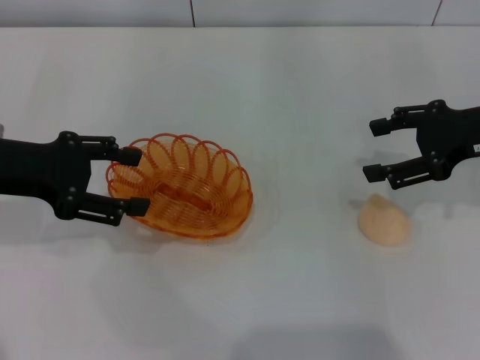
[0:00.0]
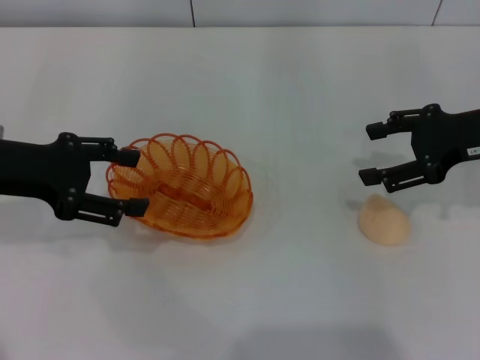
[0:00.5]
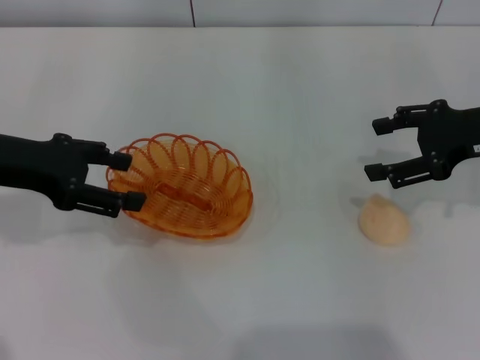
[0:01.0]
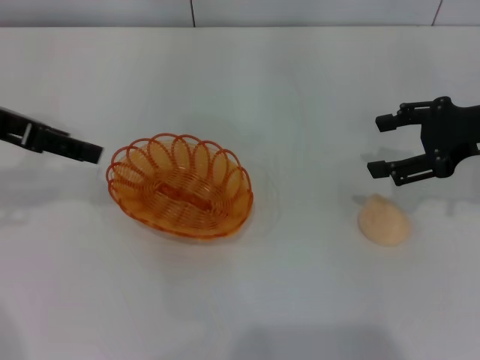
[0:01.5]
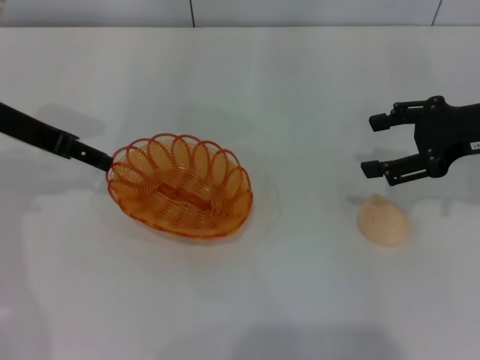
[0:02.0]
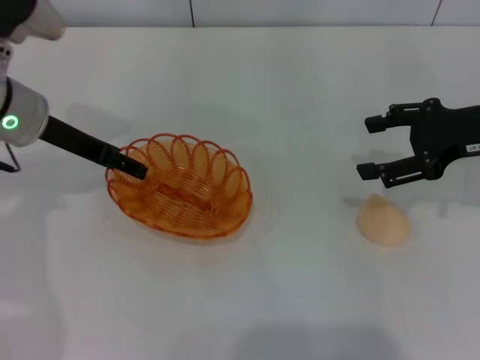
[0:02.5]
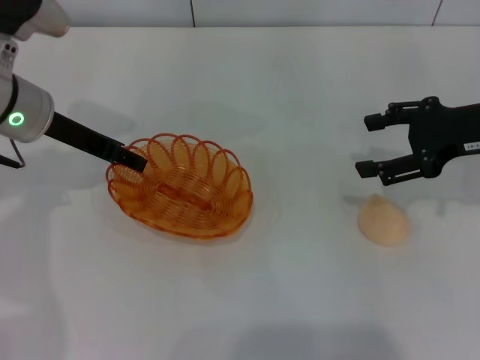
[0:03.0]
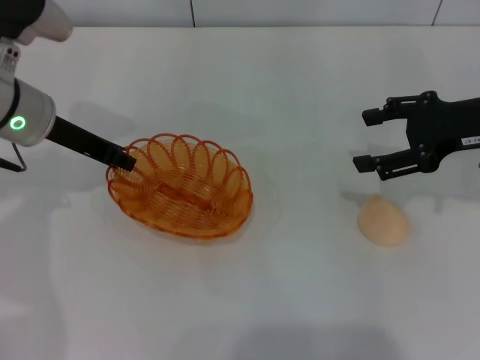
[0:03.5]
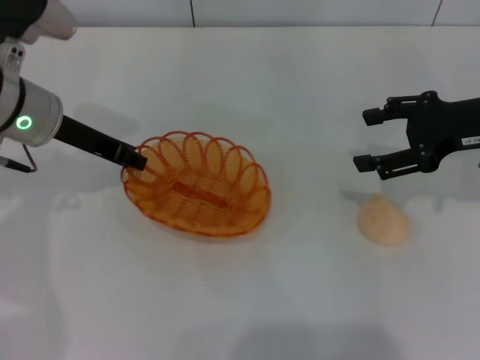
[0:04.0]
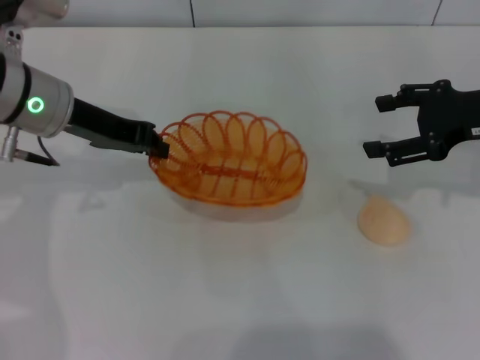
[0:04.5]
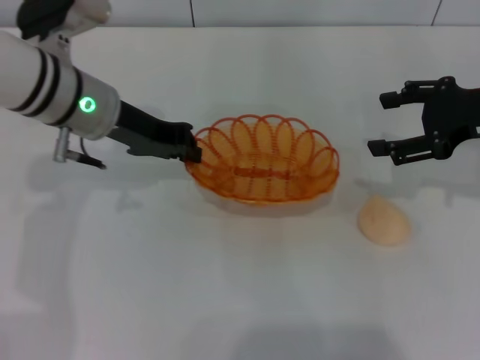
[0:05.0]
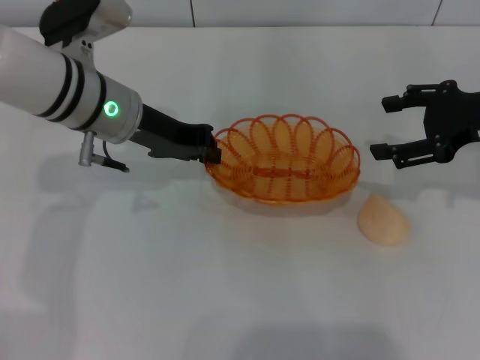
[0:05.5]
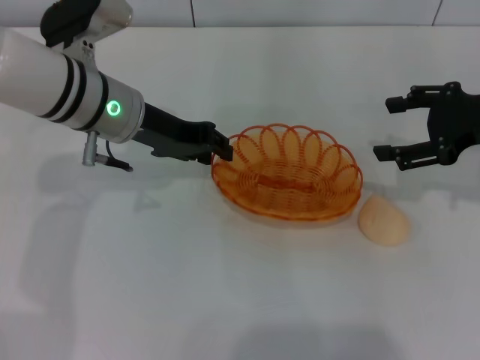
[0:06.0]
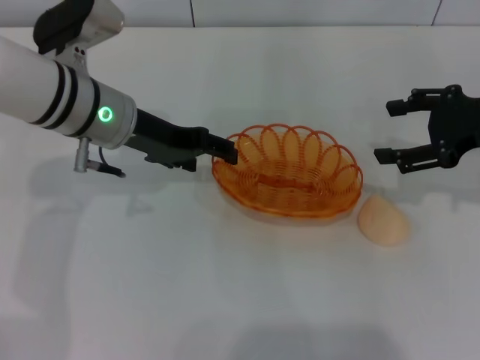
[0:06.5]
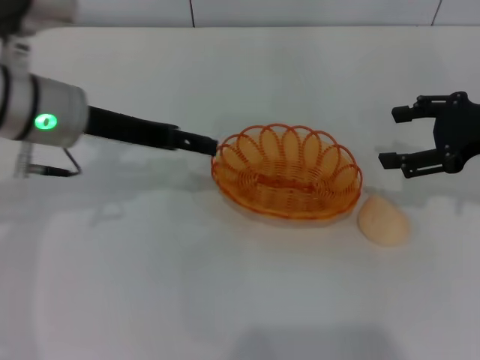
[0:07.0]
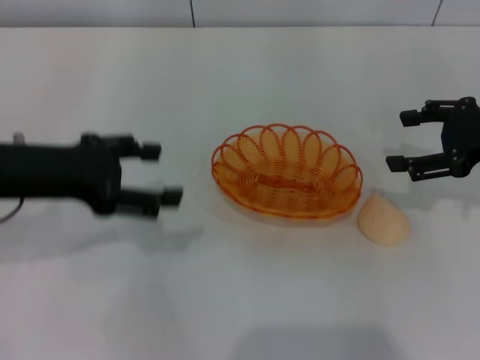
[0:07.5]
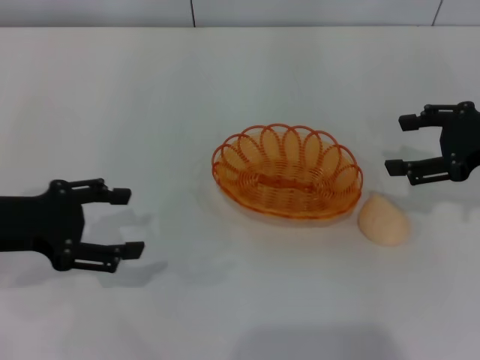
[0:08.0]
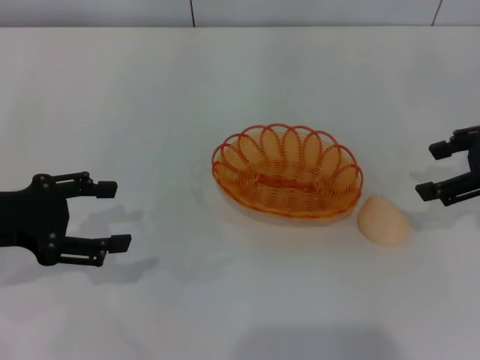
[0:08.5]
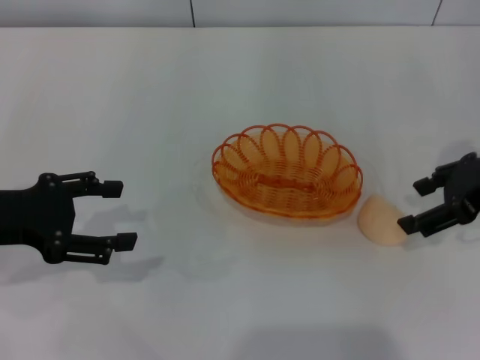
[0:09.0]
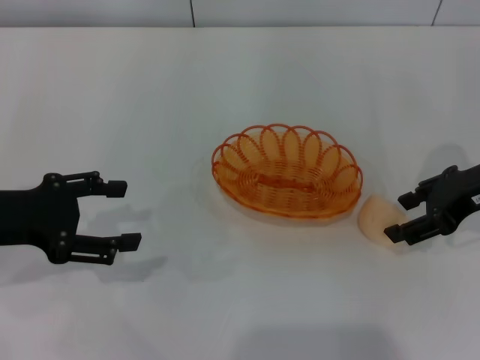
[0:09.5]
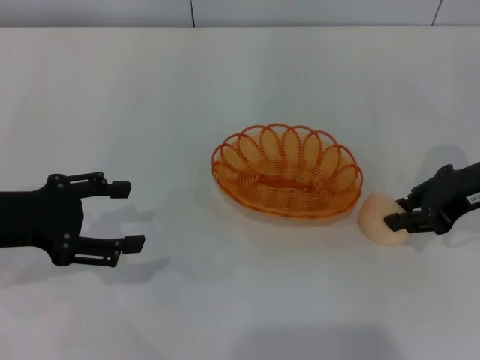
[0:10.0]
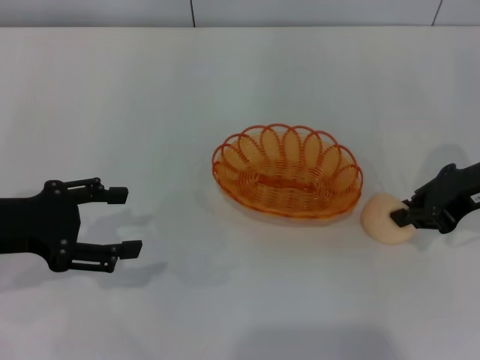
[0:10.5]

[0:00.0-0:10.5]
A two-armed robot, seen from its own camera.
Step, 0:00.0 to 0:04.0: Pick up the basket with the left gripper.
Step, 0:04.5 to 0:07.0: Place the basket in the center of view with the left gripper.
0:00.0 to 0:02.0: The left gripper heads forward, covering approximately 5 cm.
0:02.0 to 0:04.0: The left gripper ends up some 5 cm from where it was, and closes its fingers.
0:04.0 to 0:06.5: The left gripper is displaced to the right by some 5 cm, and opens up.
0:06.5 to 0:08.5: The left gripper travels to the left and backward by about 20 cm.
0:08.5 to 0:10.5: The right gripper moves approximately 5 cm, and closes its fingers.

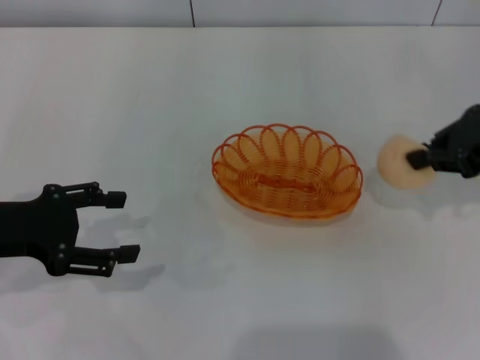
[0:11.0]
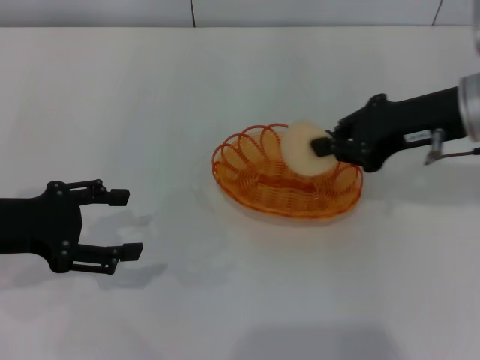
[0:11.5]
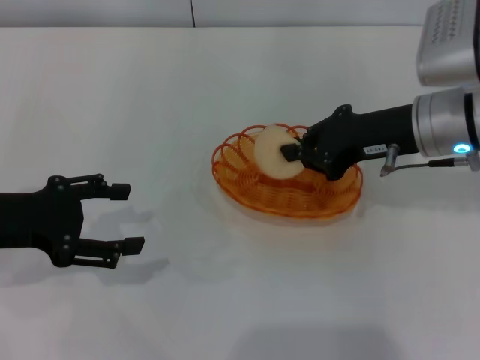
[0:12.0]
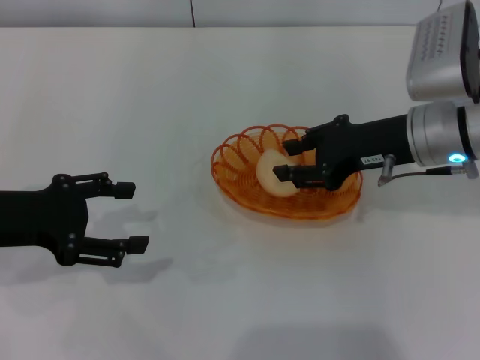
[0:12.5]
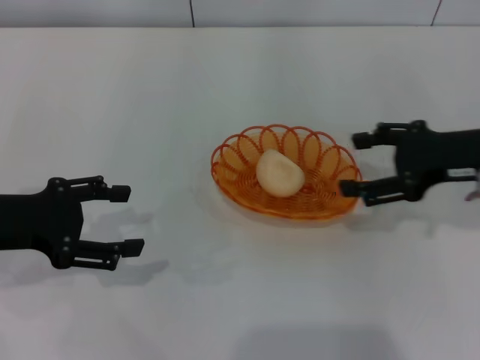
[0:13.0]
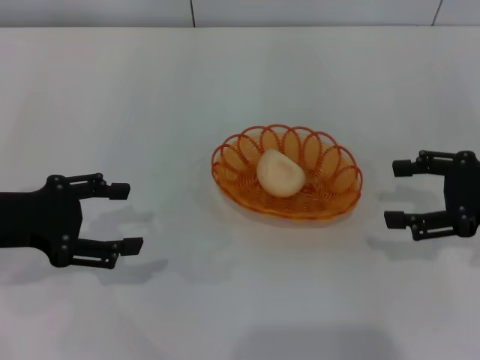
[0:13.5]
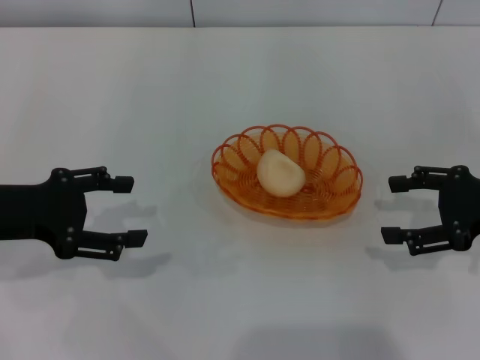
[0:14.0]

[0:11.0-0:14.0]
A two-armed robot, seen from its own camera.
Step, 0:11.0 to 0:12.5: Place the egg yolk pastry into the basket with the right gripper.
0:11.0 to 0:12.5: The right gripper shifts about 10 cm to the left and downward.
0:12.5 to 0:14.0: The right gripper moves to the right and backward, roughly 15 cm, and opens up.
